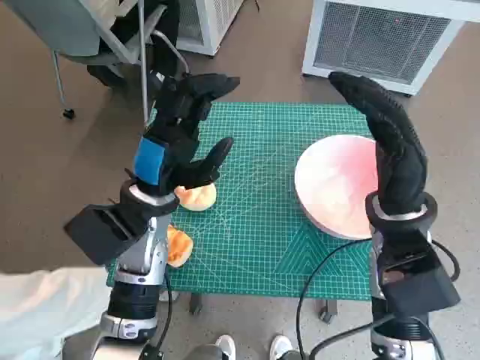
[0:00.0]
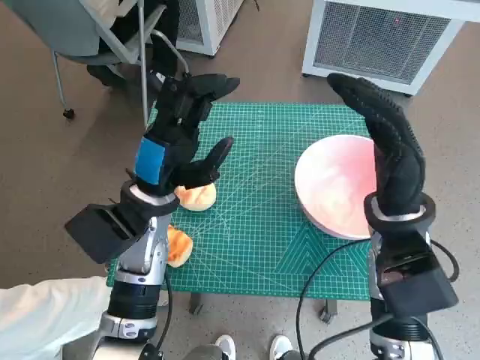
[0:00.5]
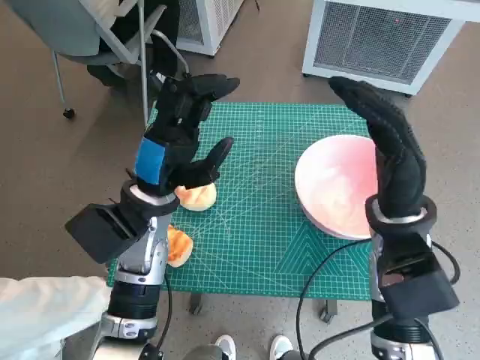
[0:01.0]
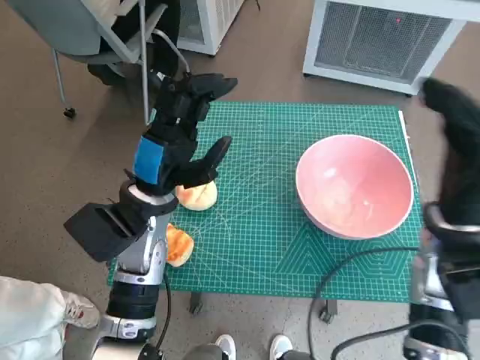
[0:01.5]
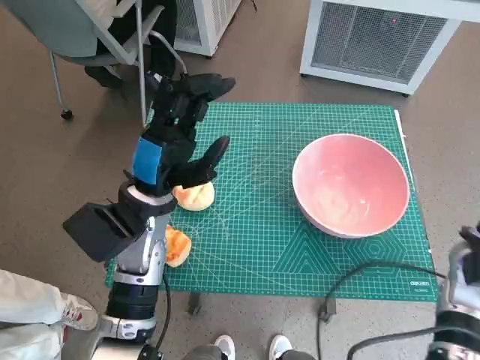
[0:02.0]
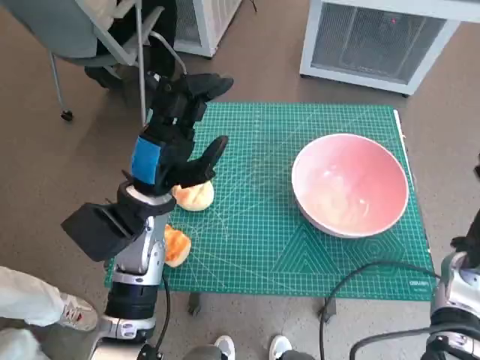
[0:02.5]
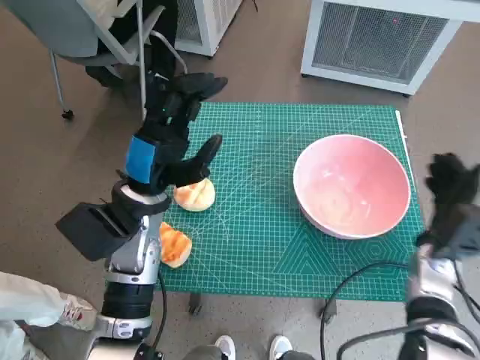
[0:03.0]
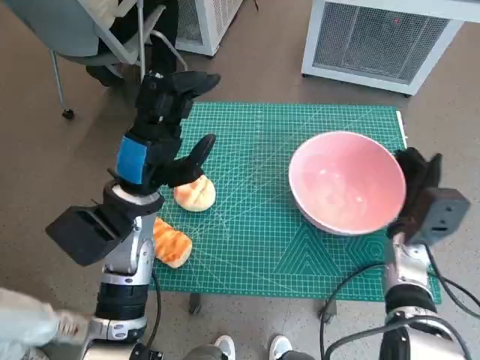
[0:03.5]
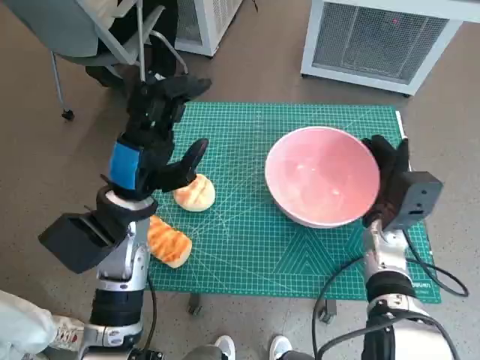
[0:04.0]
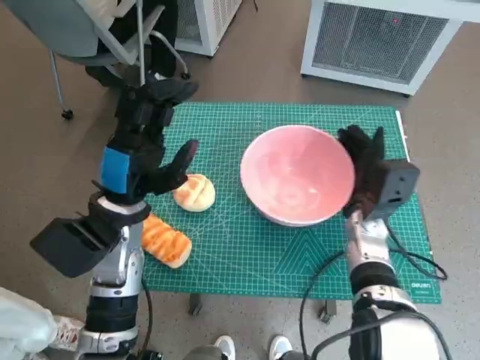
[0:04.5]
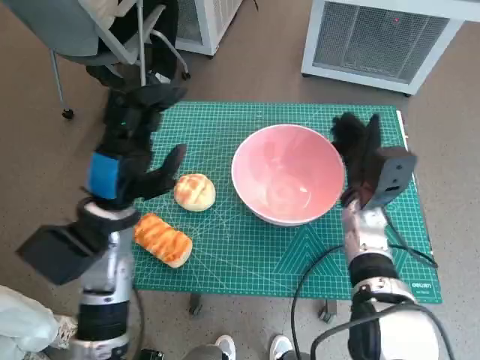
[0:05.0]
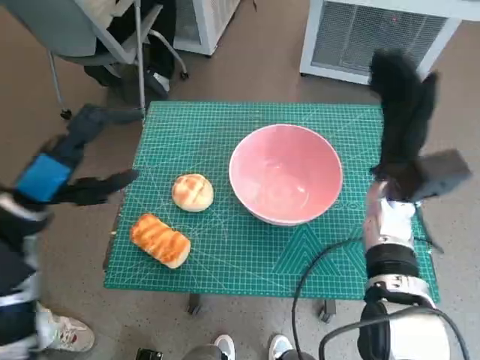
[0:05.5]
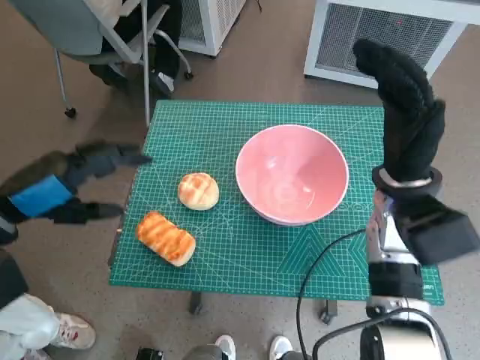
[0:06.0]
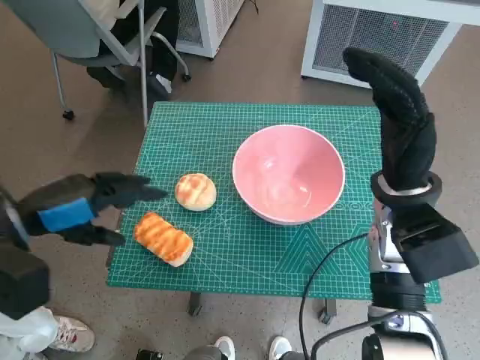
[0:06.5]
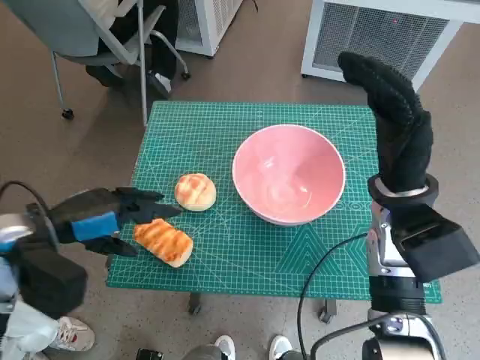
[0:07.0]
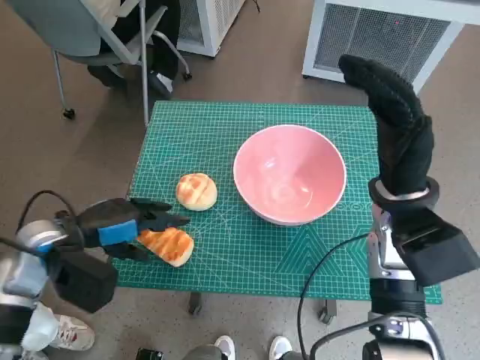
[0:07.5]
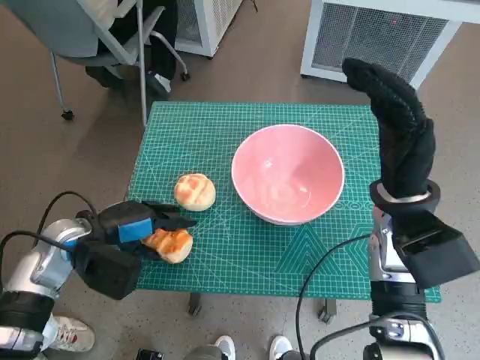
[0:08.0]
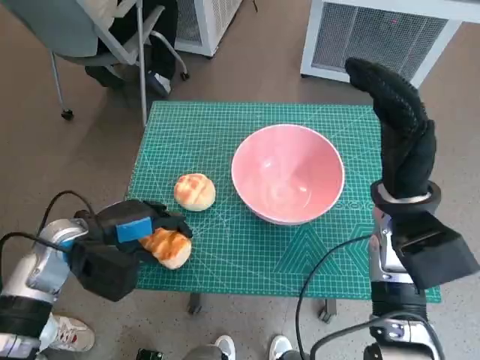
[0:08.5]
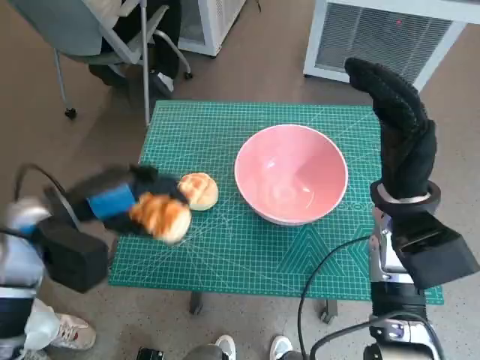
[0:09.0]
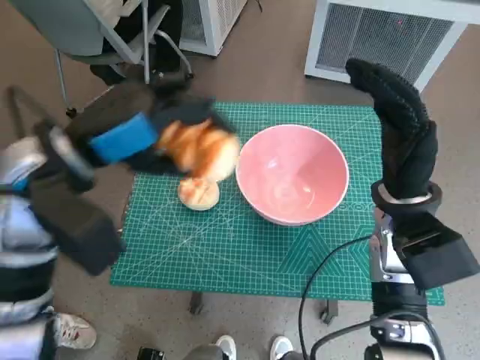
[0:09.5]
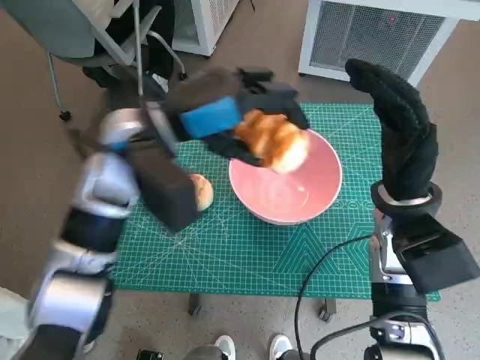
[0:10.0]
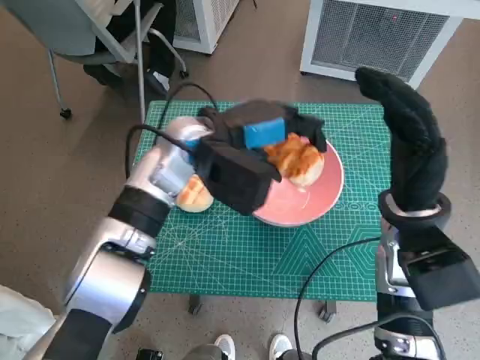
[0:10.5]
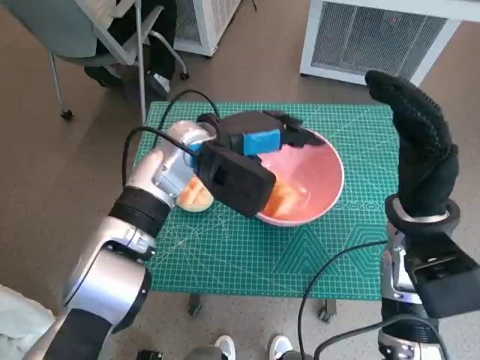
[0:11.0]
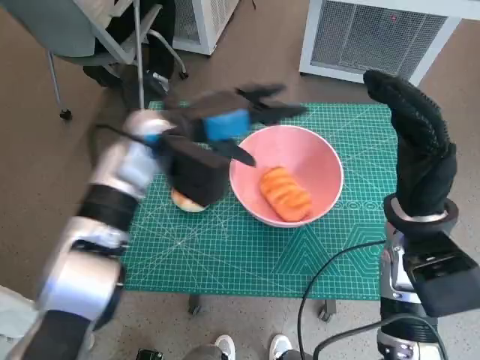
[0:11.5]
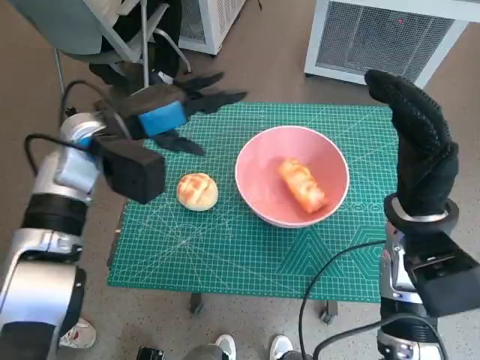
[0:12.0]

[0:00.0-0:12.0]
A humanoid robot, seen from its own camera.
Task of the whole recording: Push the bowl to the center of the table and put the bread into the bowl.
Step, 0:00.0 to 0:05.0: Move the pink bowl to the center of table with right hand.
Step, 0:05.5 to 0:08.0: Grasp the long bread with left hand.
Step, 0:08.5 to 0:11.0: Place the long bread in pink bowl with left hand.
0:02.0 to 0:04.0: The right hand travels to the left, downward and forward by approximately 10 cm.
0:04.0 to 0:06.0: The right hand moves upward, about 10 cm. The left hand goes approximately 15 cm to the left and upward.
0:06.0 to 0:08.0: The left hand shifts roughly 10 cm downward.
0:08.0 to 0:10.0: The left hand moves upward and to the right, approximately 20 cm.
0:10.0 to 0:12.0: The left hand heads to the left, covering some 5 cm.

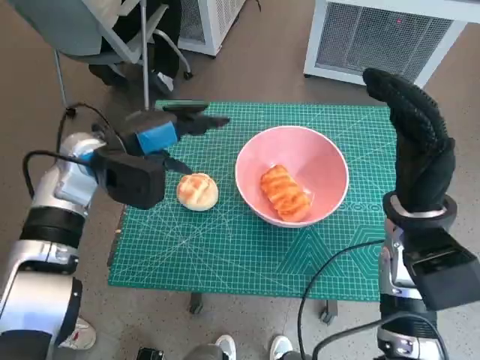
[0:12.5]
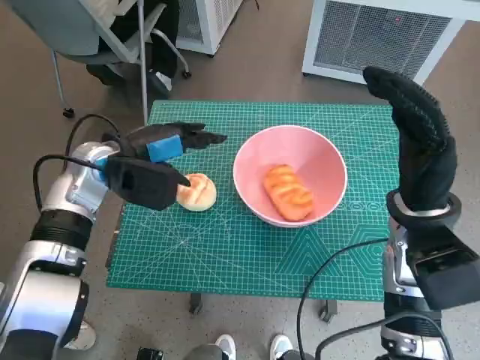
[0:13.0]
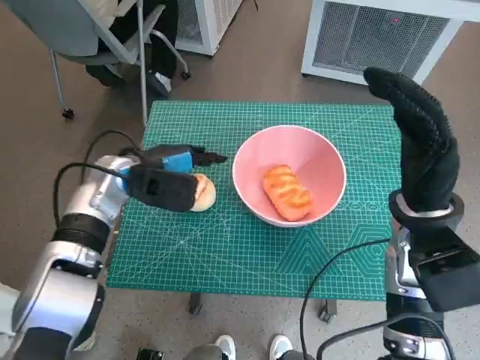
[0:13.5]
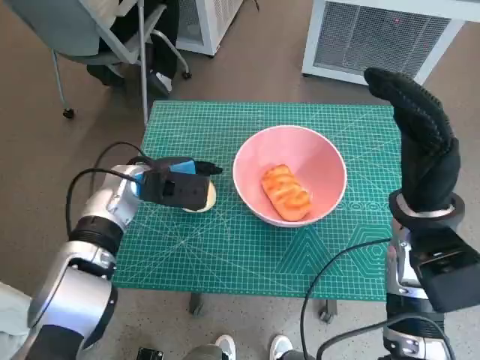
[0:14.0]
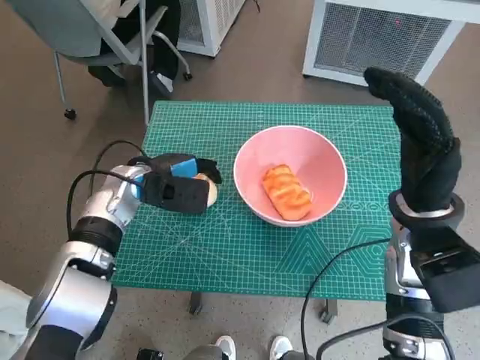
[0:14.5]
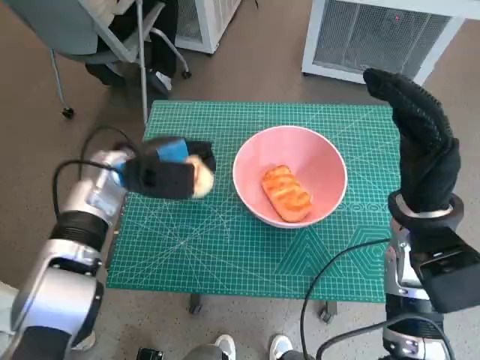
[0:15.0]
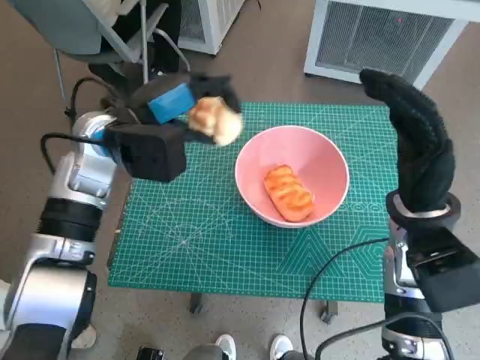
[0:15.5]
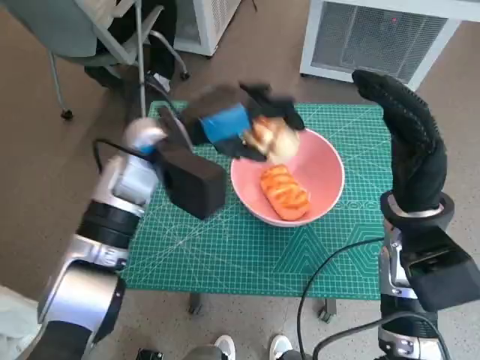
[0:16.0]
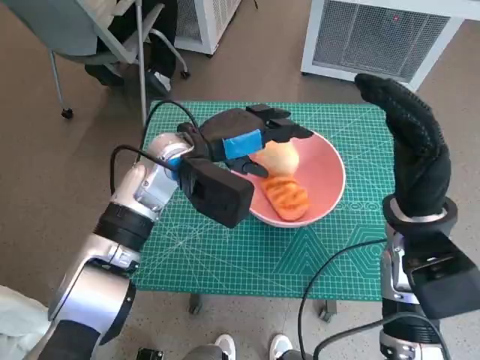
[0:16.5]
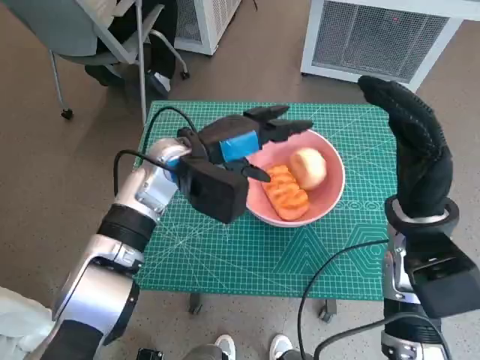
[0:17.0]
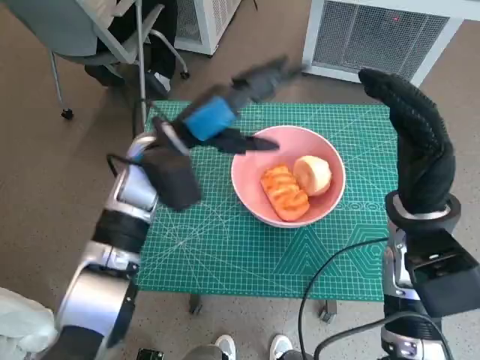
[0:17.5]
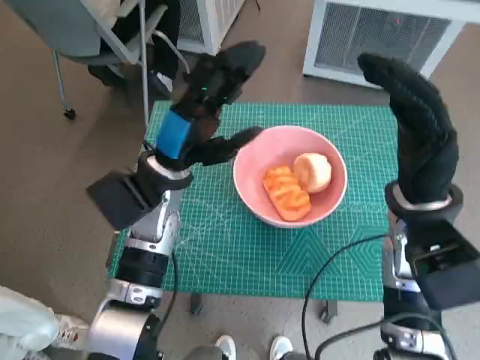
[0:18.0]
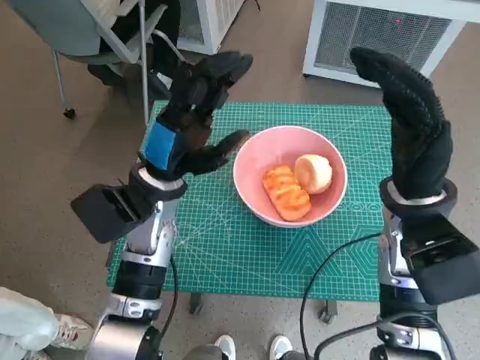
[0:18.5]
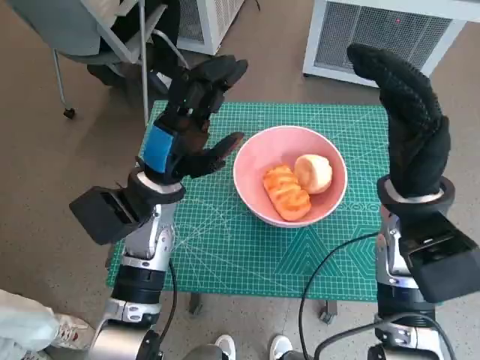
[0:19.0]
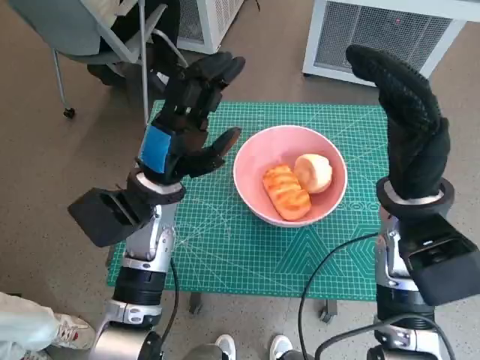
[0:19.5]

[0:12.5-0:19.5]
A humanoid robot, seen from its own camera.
Task of the whole recording: Push the bowl to the center of the table and put the bread into the bowl.
Step, 0:12.5 to 0:14.0: Grasp the round bread with left hand.
Step, 0:14.5 to 0:16.5: Place the round bread in pink bowl with left hand.
0:12.5 to 0:14.5: The left hand goes approximately 10 cm downward.
0:14.5 to 0:16.0: The left hand goes some 10 cm upward and to the right.
0:17.5 to 0:19.5: The left hand ends up roughly 5 cm from where it was.

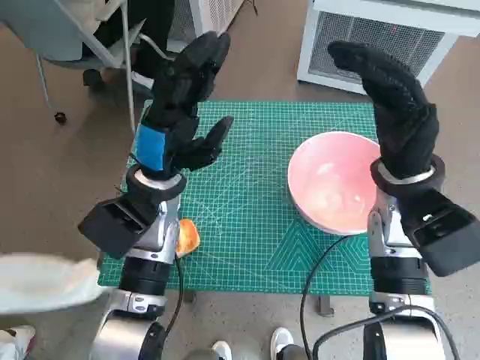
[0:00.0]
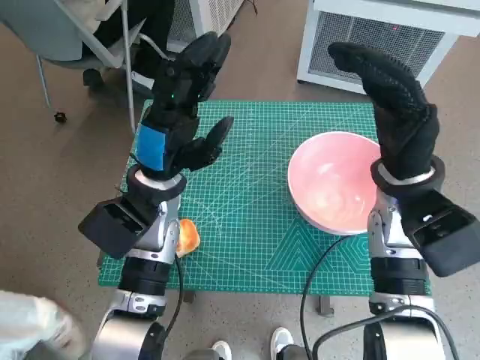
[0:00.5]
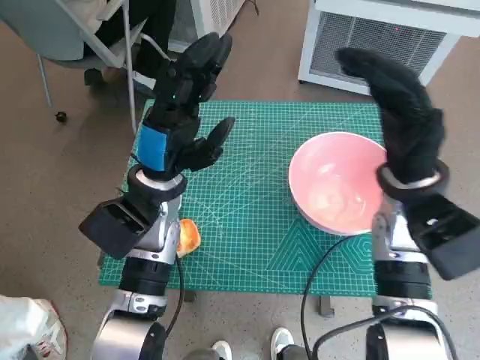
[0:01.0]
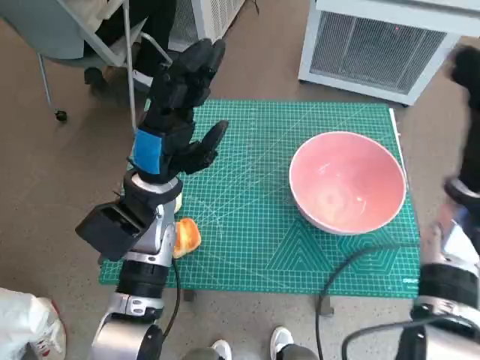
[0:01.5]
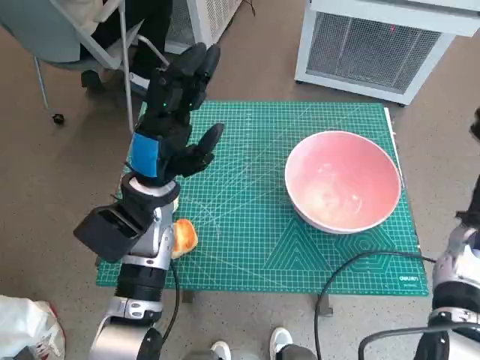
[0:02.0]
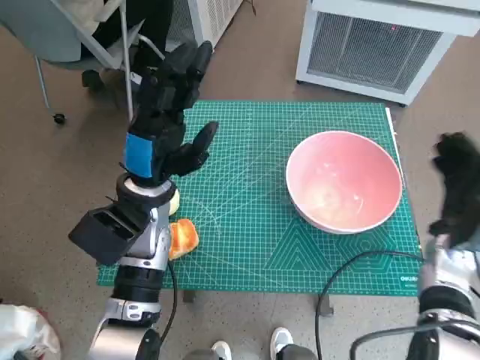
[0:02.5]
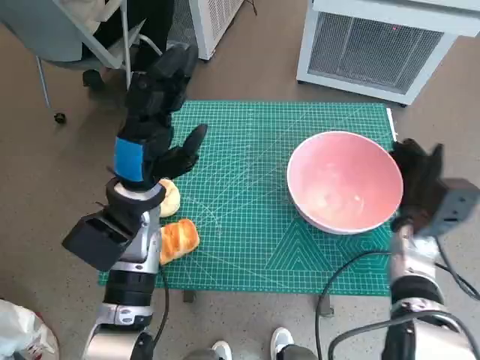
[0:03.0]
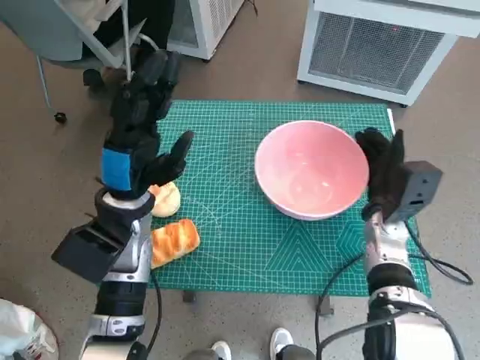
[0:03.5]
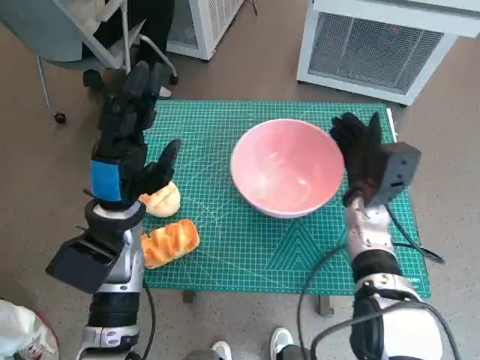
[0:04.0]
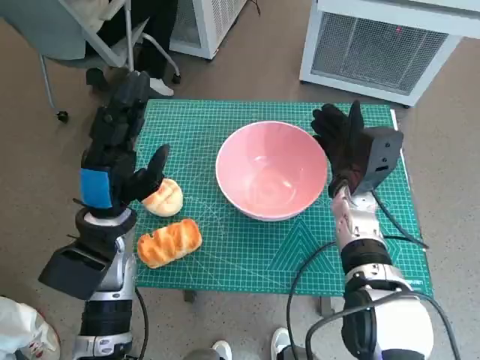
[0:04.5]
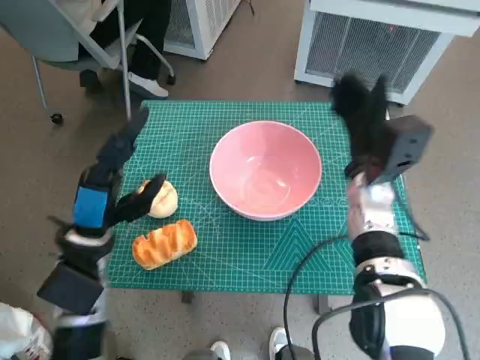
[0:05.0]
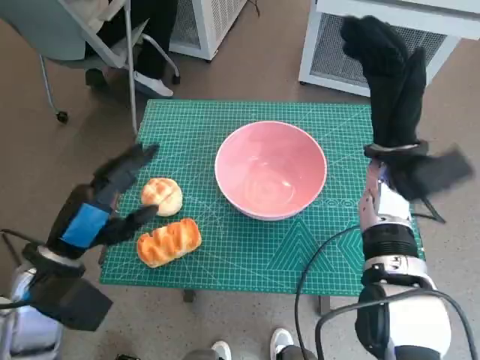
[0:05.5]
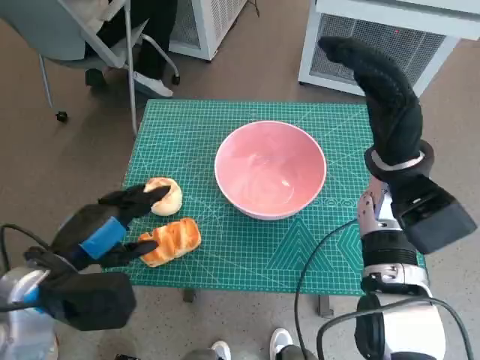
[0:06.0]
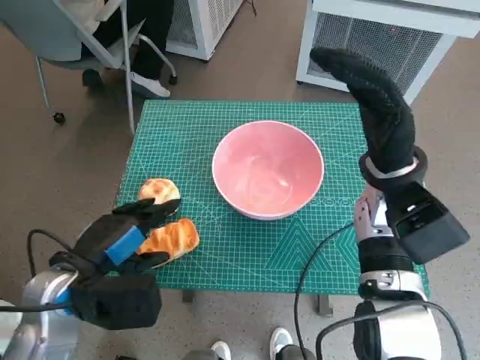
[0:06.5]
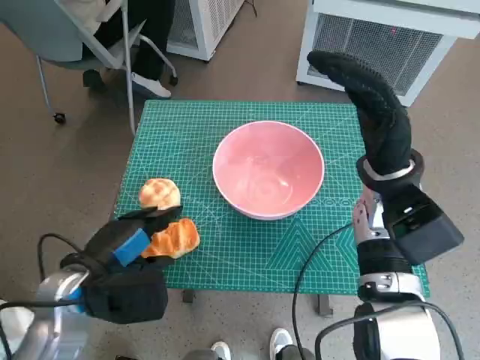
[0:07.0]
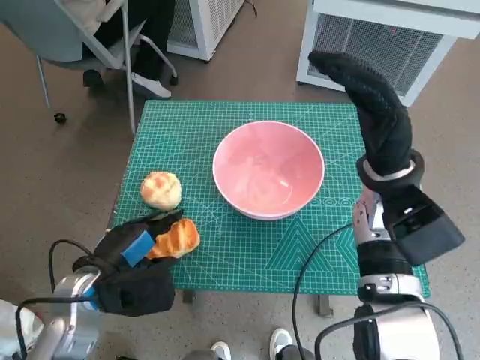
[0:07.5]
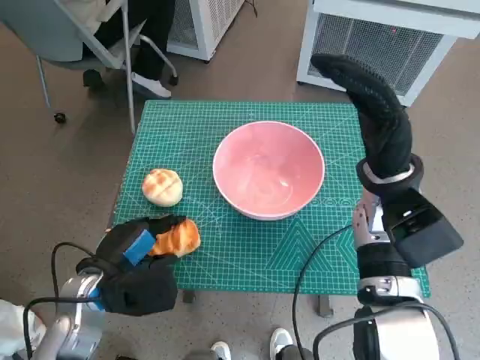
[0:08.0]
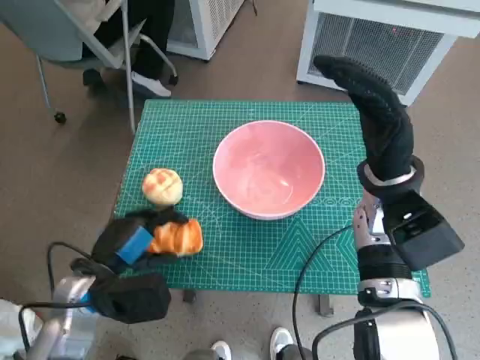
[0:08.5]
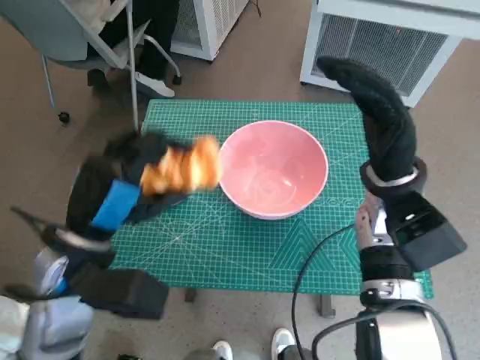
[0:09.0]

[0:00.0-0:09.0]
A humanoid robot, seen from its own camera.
Task of the whole recording: Push the bowl to the center of the table and put the bread into the bowl.
Step, 0:00.0 to 0:04.5: Move the pink bowl to the center of table with right hand.
Step, 0:05.0 to 0:08.0: Grasp the long bread with left hand.
0:02.0 to 0:04.5: The left hand travels to the left by some 5 cm. The right hand shifts approximately 15 cm to the left.
0:04.5 to 0:07.0: The right hand heads upward, covering roughly 10 cm; the left hand shifts approximately 5 cm backward.
0:07.0 to 0:09.0: The left hand travels upward by some 5 cm.
